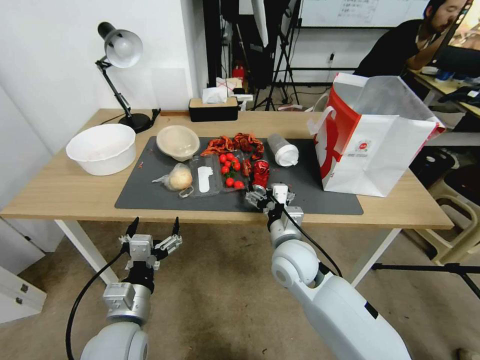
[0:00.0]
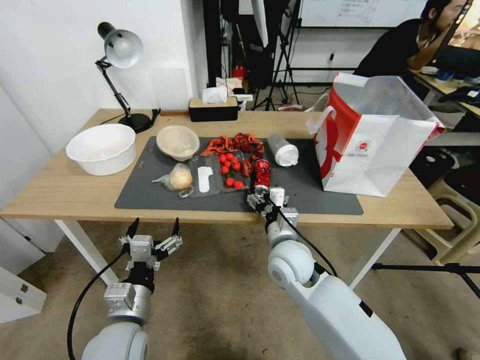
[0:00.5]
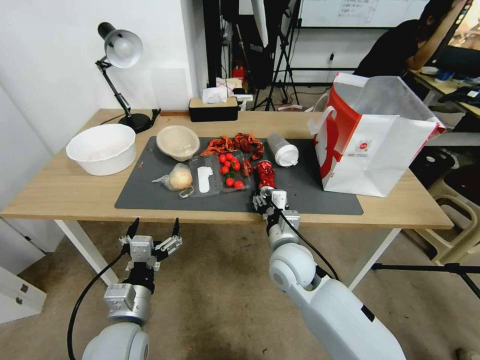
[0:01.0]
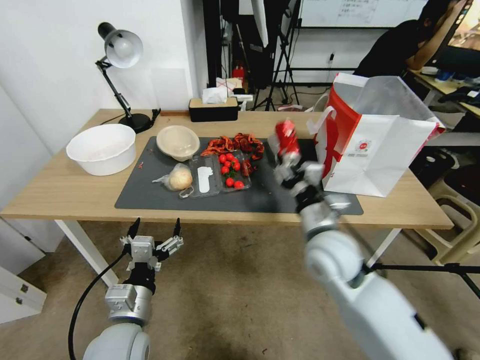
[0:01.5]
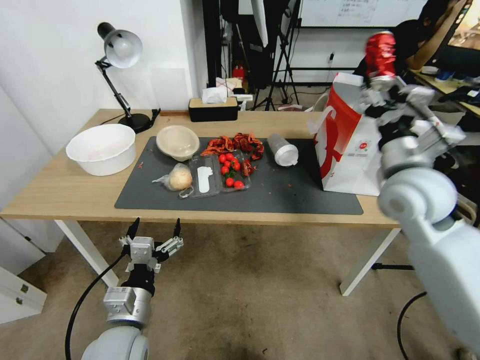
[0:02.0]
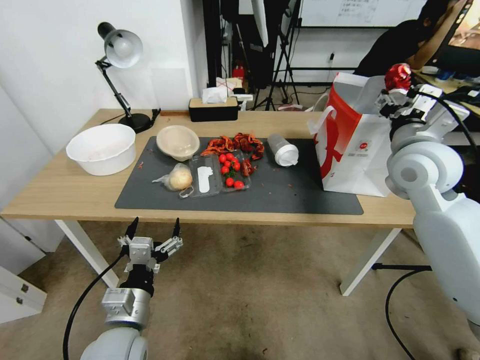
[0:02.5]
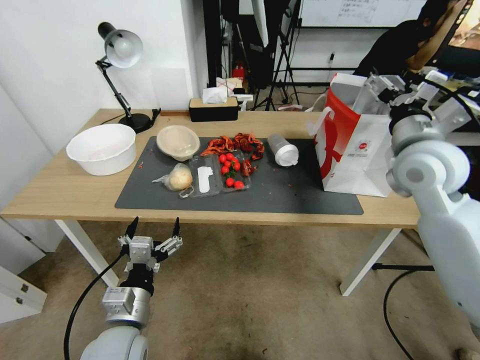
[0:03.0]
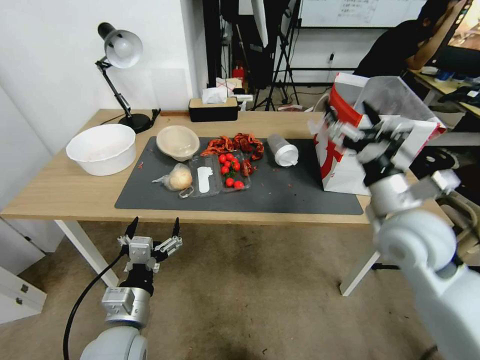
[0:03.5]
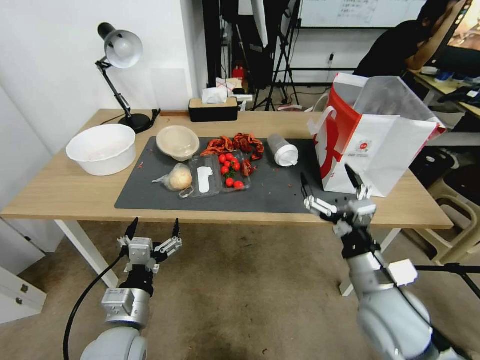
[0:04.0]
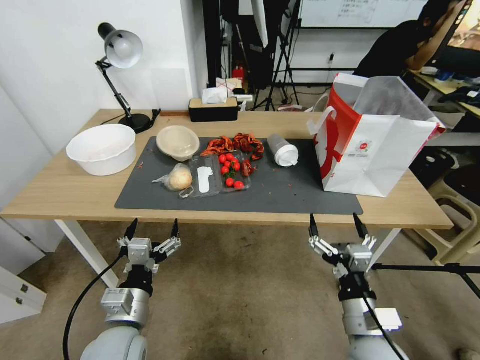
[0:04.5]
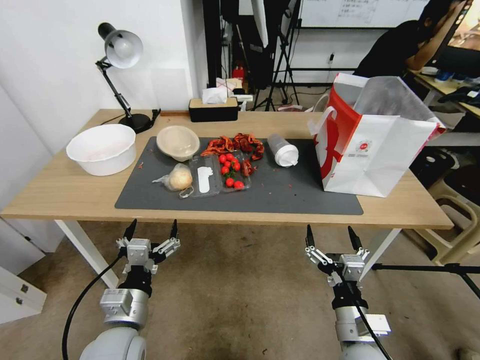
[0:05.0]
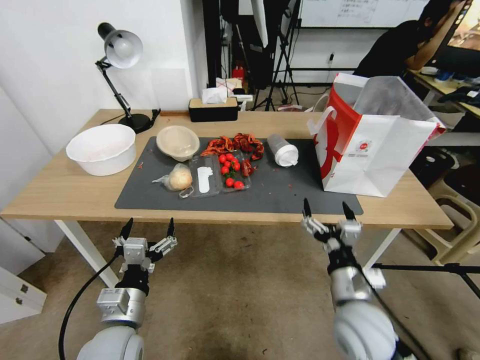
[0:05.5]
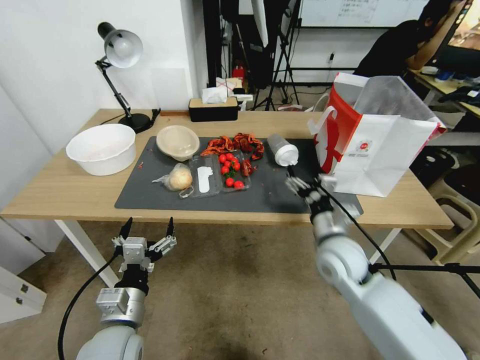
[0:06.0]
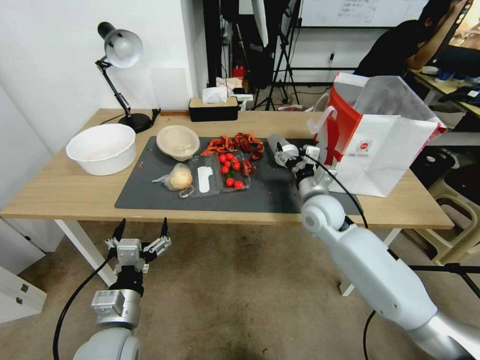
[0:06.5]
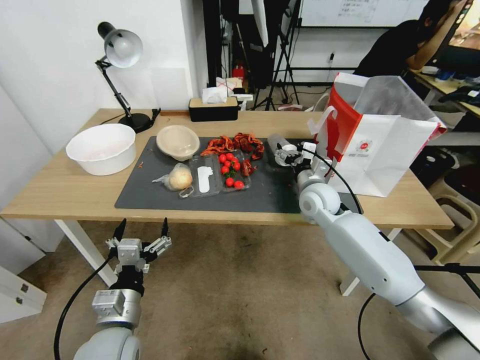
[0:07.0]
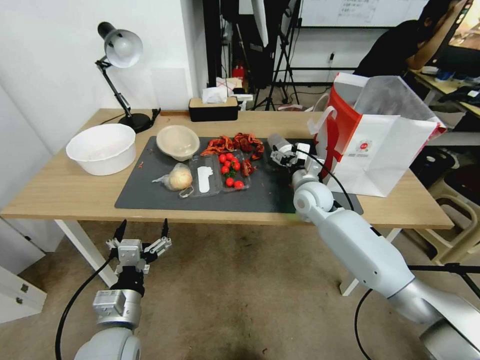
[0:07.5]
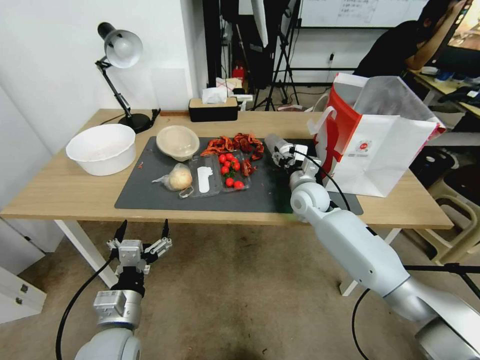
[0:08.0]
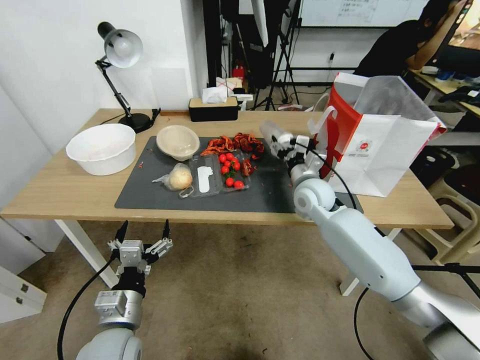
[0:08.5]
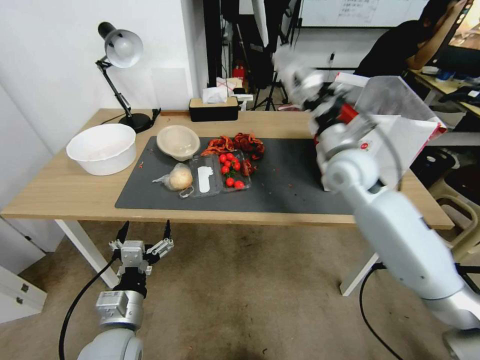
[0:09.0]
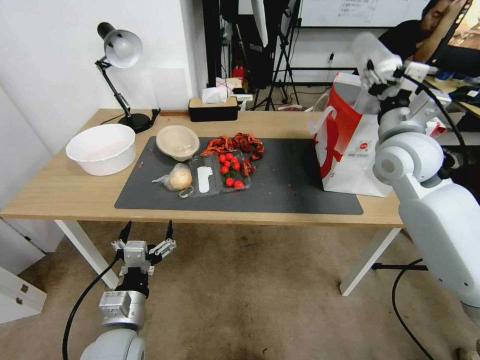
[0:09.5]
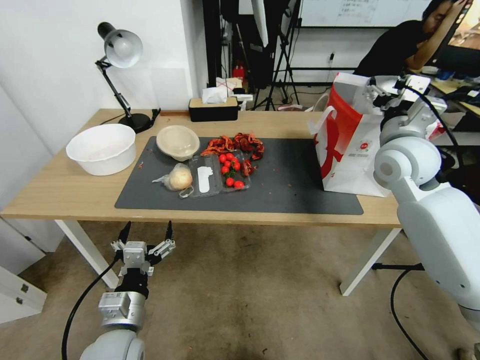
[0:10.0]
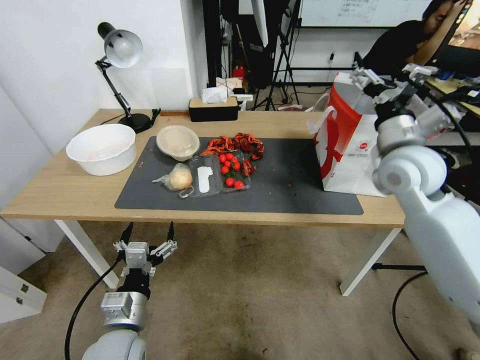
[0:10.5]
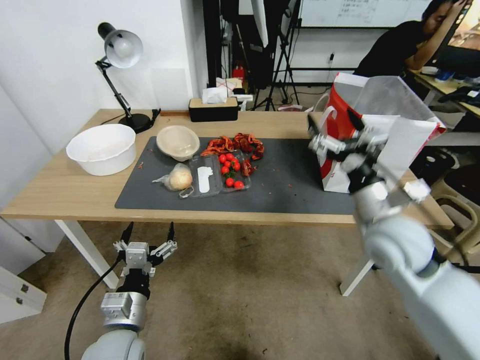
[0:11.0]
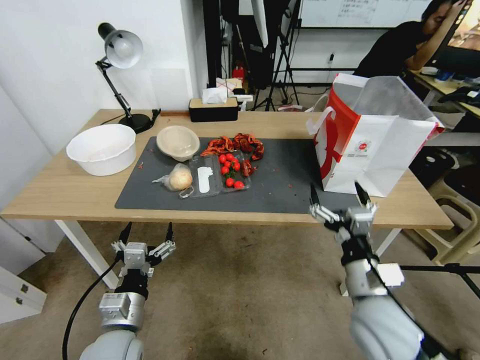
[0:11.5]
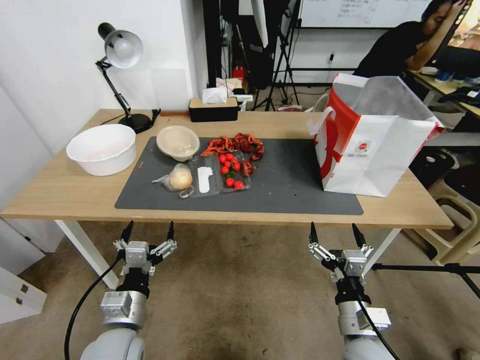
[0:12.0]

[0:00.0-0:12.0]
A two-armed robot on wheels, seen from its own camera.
0.0 to 2.0 s: The right gripper moves upward and to the right, about 25 cm, and closes up.
2.0 to 4.0 s: The right gripper shifts approximately 15 cm backward and downward, and opens its fingers.
4.0 to 6.0 s: The right gripper heads downward, covering some 10 cm.
6.0 to 8.0 s: The right gripper is displaced forward by some 20 cm.
8.0 to 10.0 s: The right gripper travels upward and to the right by some 25 cm.
10.0 to 12.0 s: The right gripper travels backward and downward by some 40 cm.

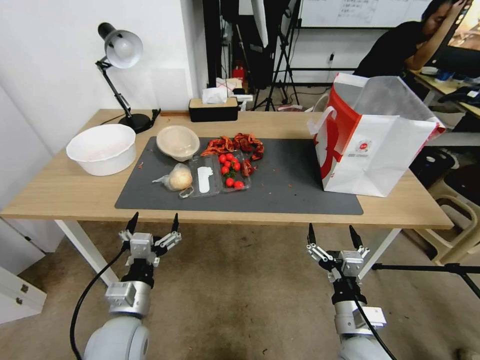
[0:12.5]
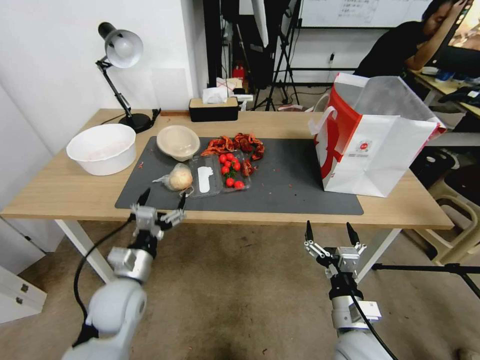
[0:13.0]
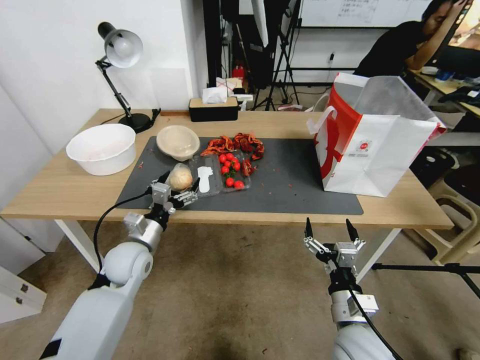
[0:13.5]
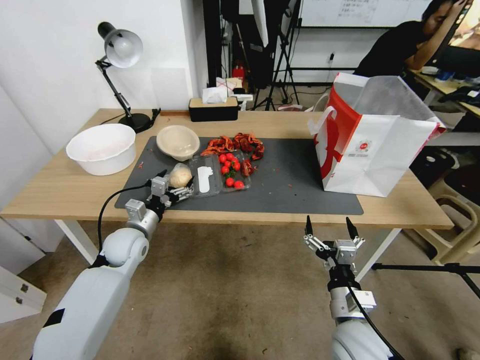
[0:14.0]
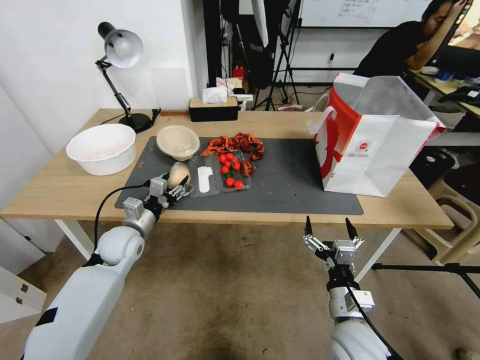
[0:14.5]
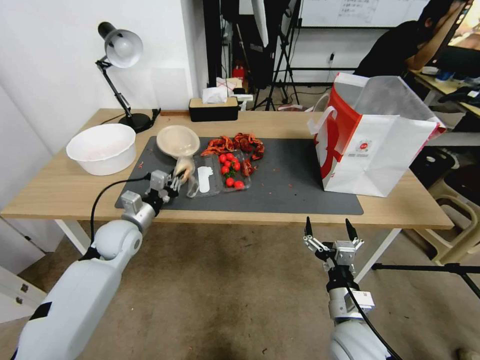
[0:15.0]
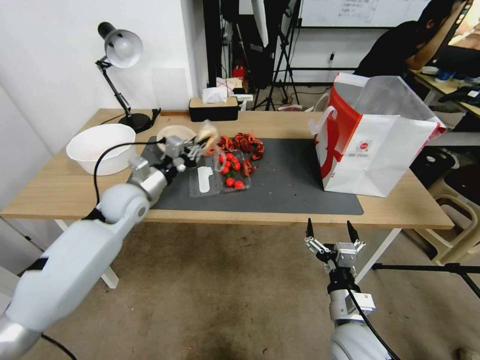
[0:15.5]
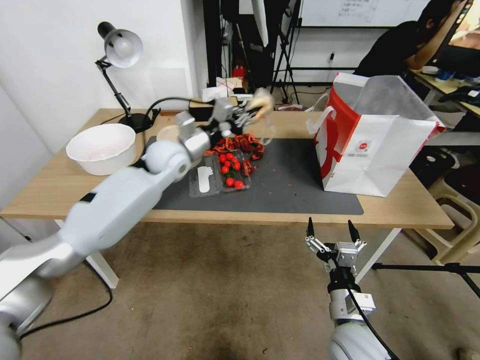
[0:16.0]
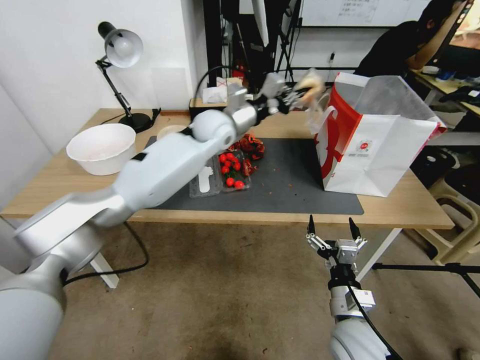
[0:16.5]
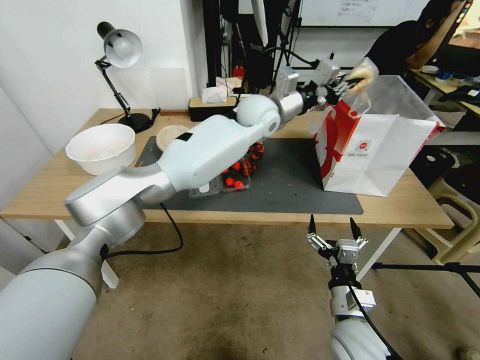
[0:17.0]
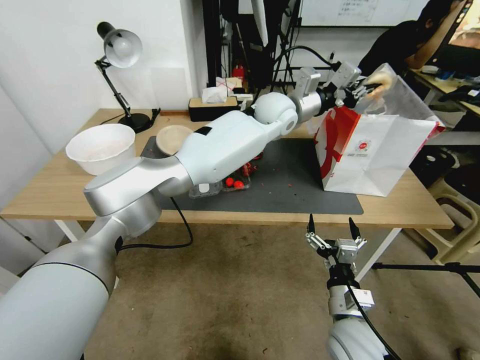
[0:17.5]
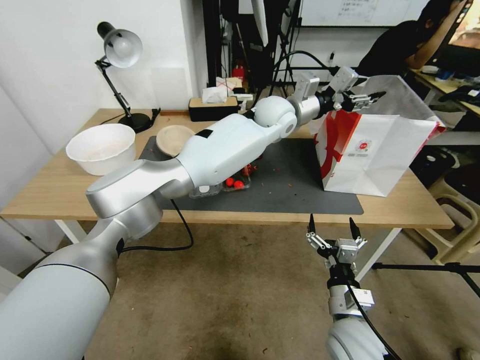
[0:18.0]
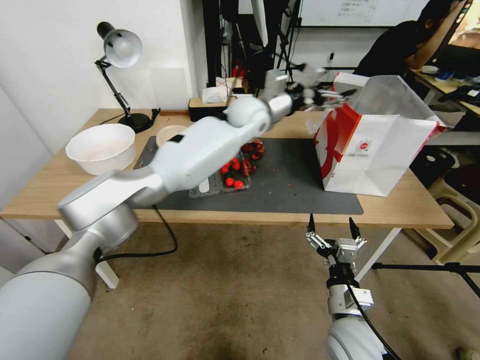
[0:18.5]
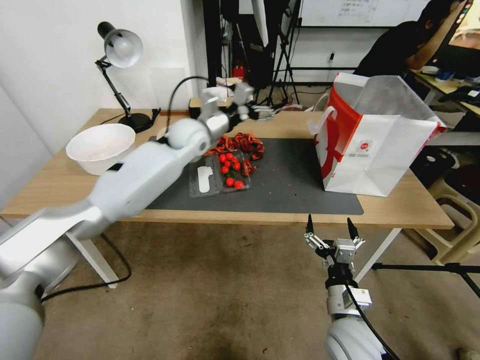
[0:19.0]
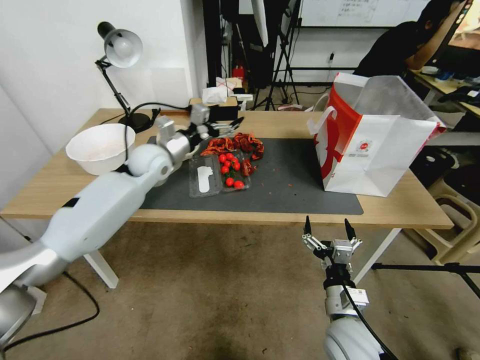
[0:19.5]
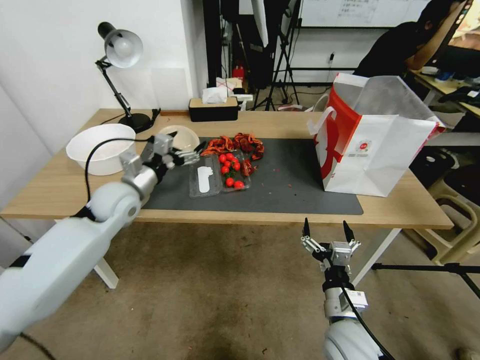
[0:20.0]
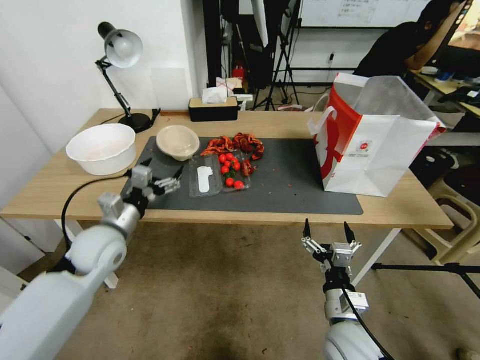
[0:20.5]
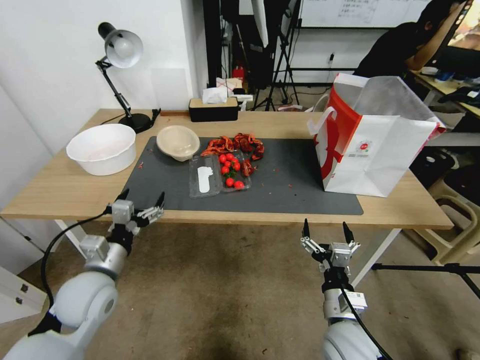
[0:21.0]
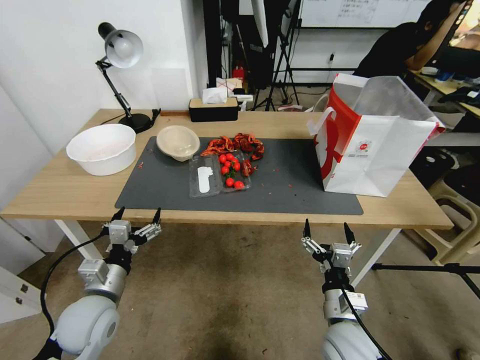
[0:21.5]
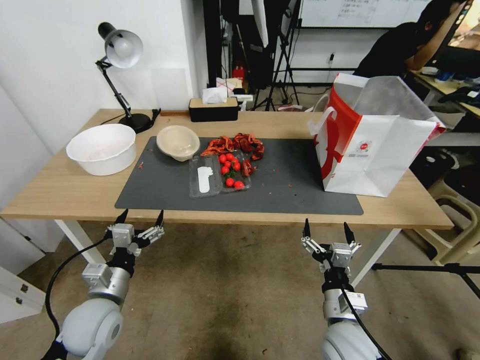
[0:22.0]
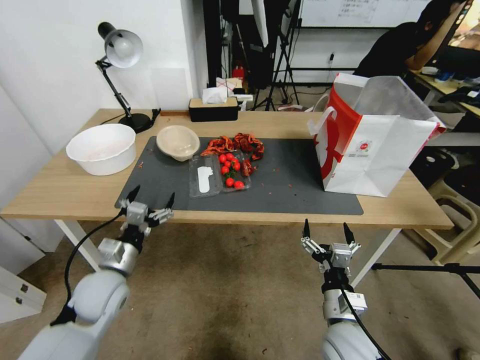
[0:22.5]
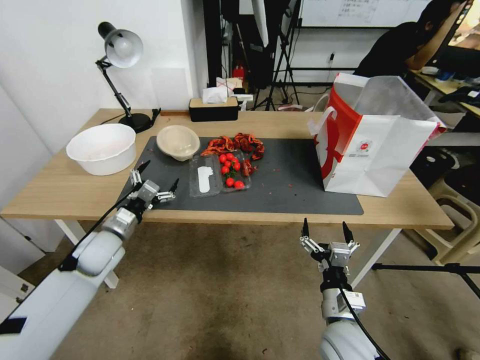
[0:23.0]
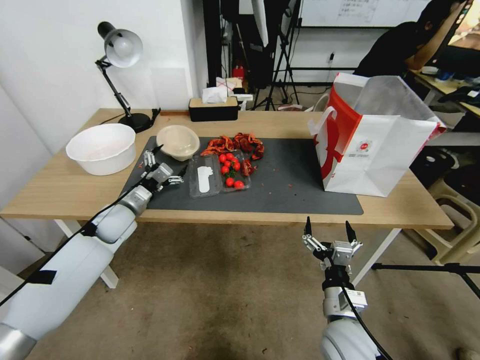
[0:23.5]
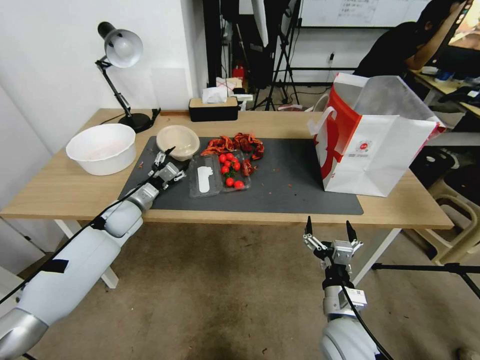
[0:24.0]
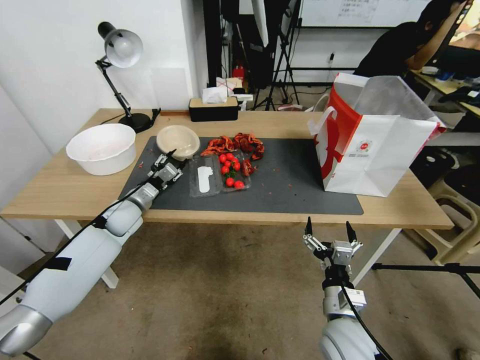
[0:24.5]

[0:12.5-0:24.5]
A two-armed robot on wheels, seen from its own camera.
12.5 to 14.5 s: The left gripper travels forward by some 20 cm, and closes its fingers.
14.5 to 16.5 s: The left gripper moves to the right, upward and forward, roughly 35 cm, and closes up.
16.5 to 18.5 s: The left gripper goes approximately 10 cm to the right, and opens up.
18.5 to 20.5 s: The left gripper travels to the left, backward and downward by roughly 40 cm.
20.5 to 22.5 s: The left gripper goes about 15 cm backward and downward.
22.5 to 24.5 s: The left gripper heads forward, covering roughly 20 cm, and closes up.

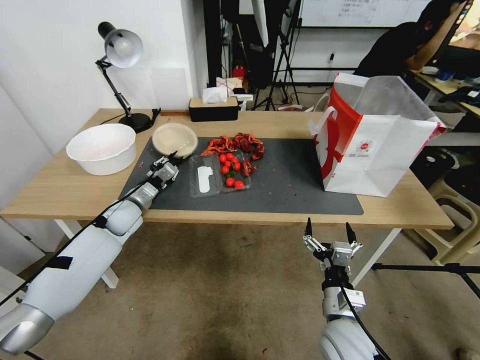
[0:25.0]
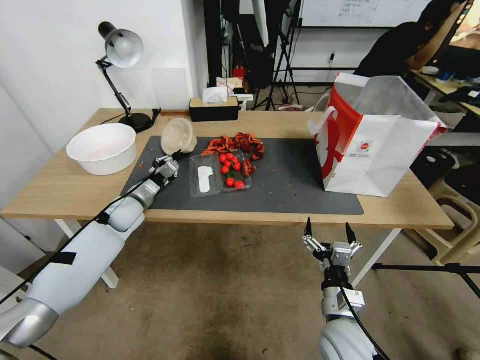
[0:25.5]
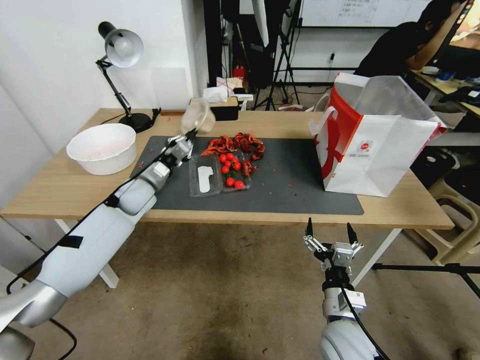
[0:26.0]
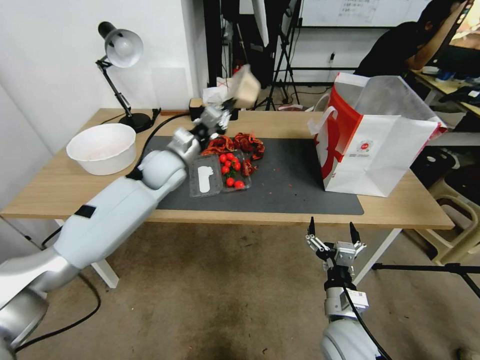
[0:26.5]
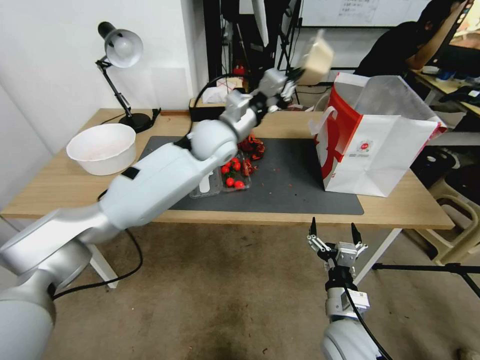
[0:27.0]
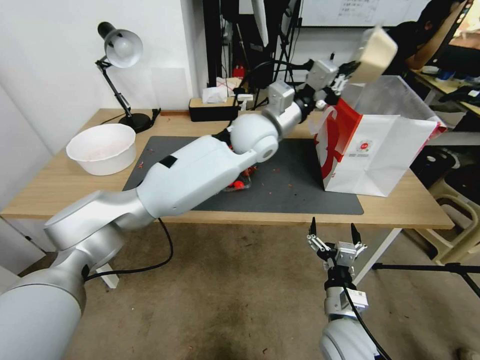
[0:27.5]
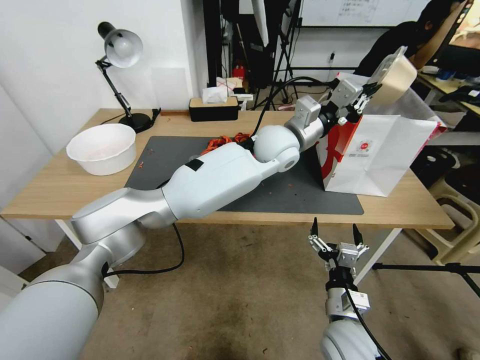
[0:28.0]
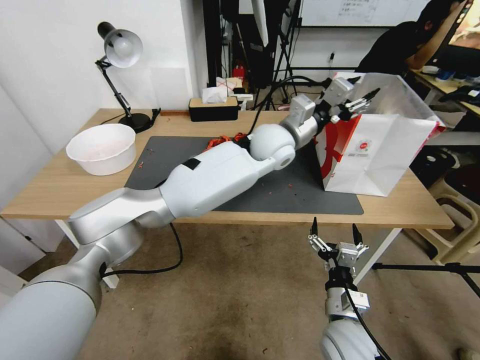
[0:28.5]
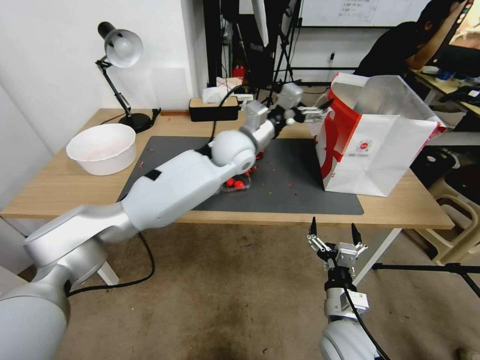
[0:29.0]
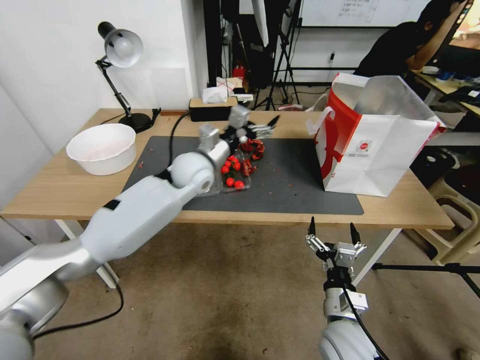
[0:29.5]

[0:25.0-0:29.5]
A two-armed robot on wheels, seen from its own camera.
25.0 to 27.0 s: The left gripper is displaced to the right and upward by about 35 cm.
27.0 to 29.5 s: The left gripper moves downward, about 10 cm, goes to the right and returns, some 15 cm each way, and opens.
